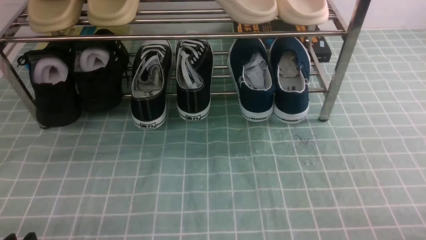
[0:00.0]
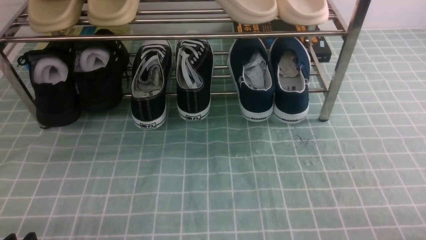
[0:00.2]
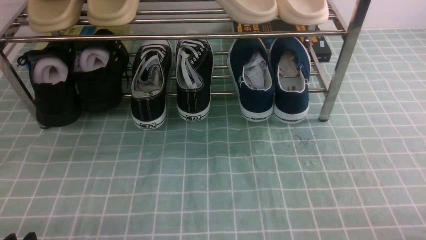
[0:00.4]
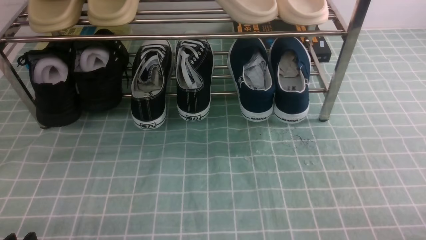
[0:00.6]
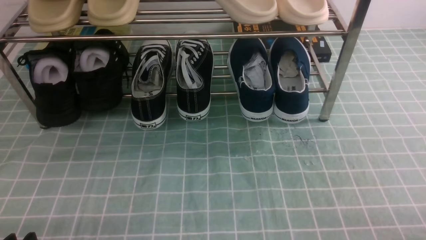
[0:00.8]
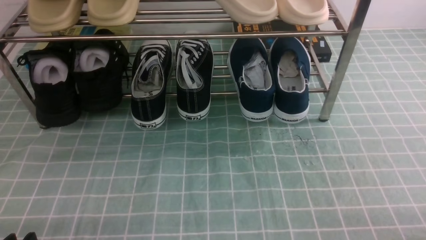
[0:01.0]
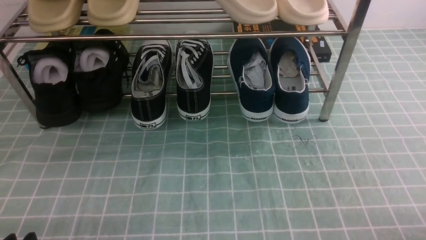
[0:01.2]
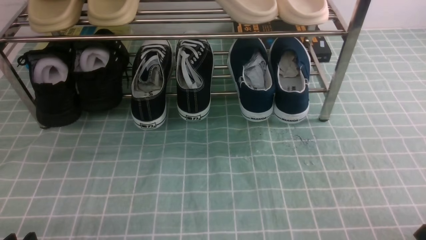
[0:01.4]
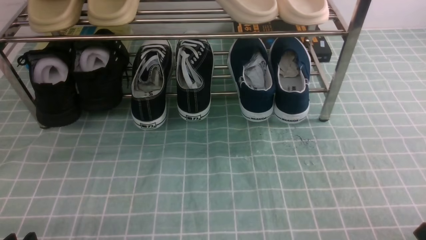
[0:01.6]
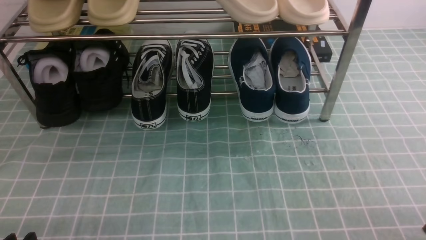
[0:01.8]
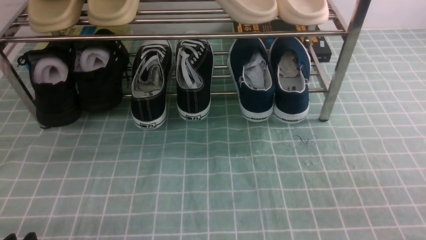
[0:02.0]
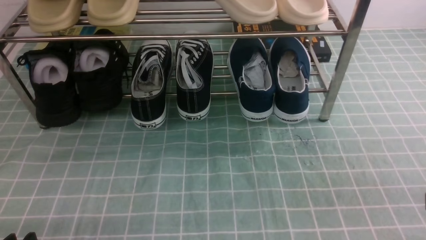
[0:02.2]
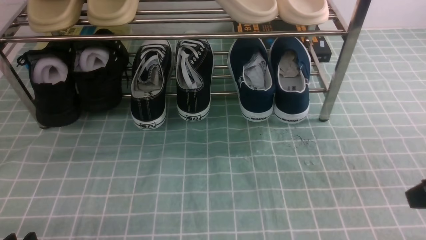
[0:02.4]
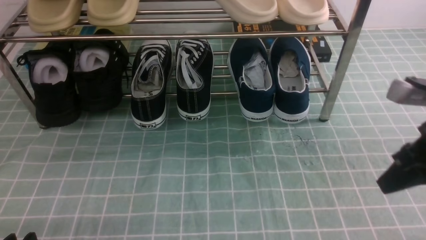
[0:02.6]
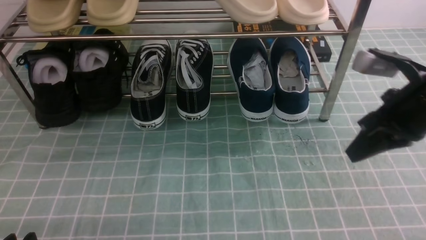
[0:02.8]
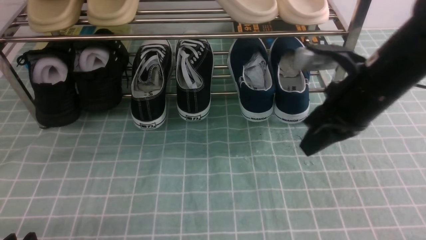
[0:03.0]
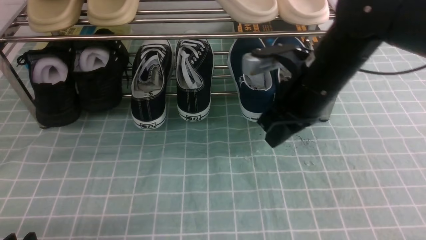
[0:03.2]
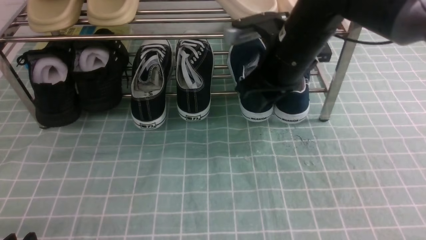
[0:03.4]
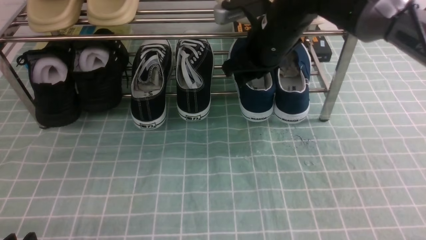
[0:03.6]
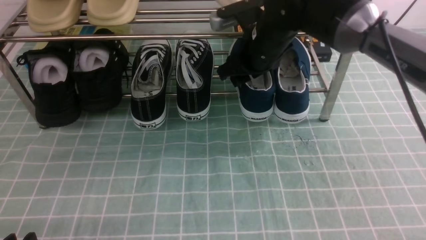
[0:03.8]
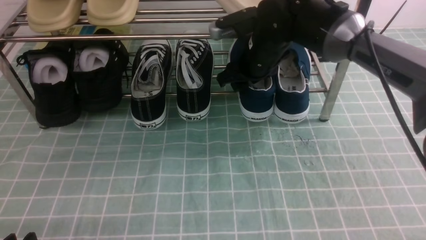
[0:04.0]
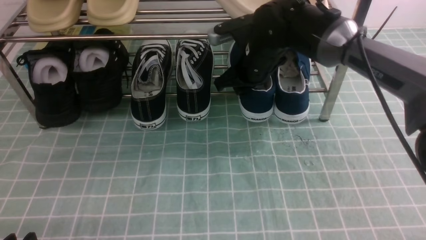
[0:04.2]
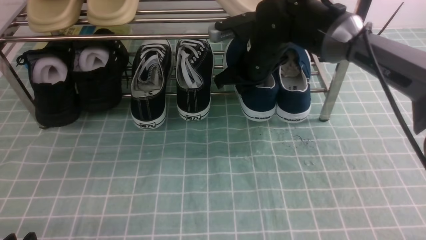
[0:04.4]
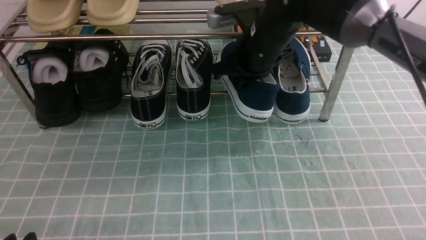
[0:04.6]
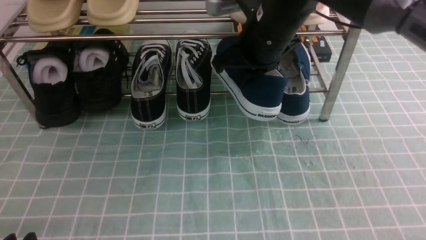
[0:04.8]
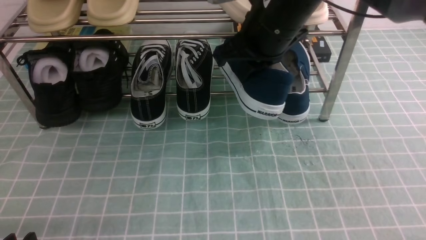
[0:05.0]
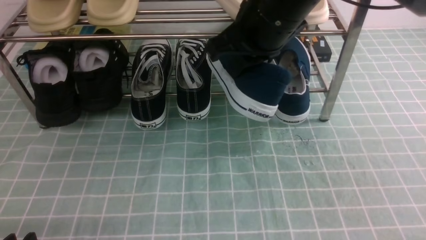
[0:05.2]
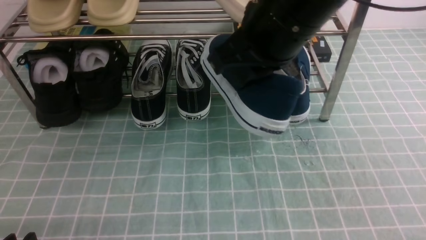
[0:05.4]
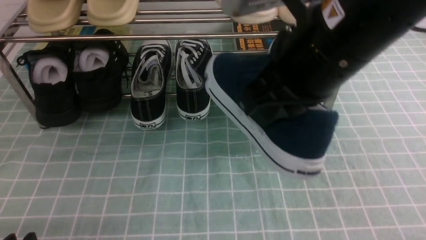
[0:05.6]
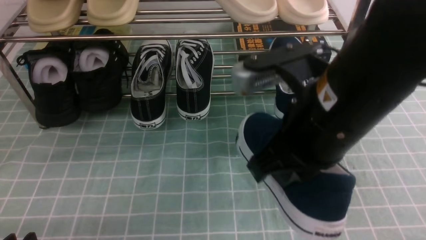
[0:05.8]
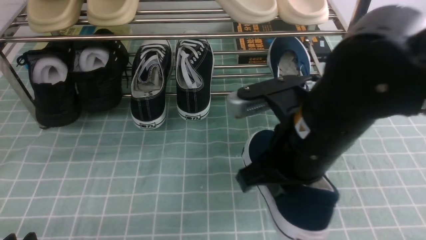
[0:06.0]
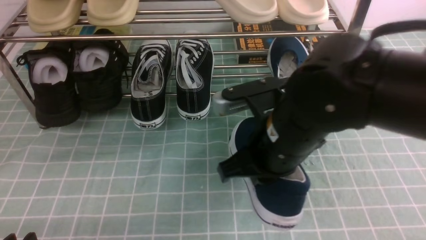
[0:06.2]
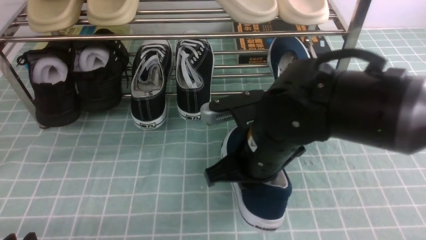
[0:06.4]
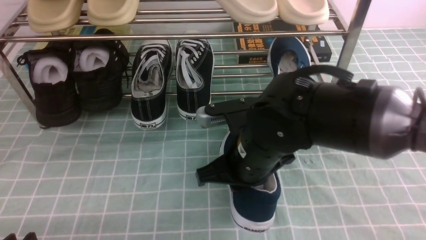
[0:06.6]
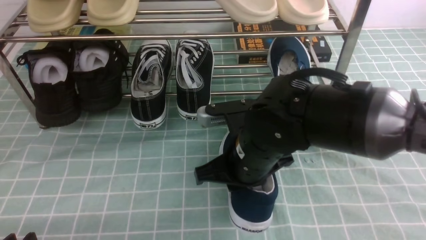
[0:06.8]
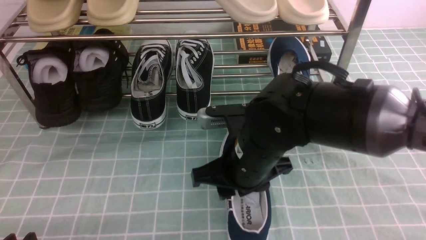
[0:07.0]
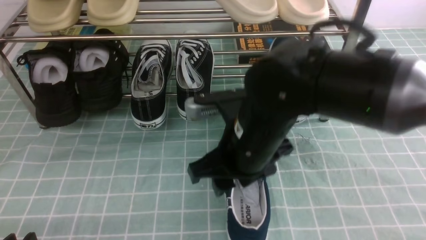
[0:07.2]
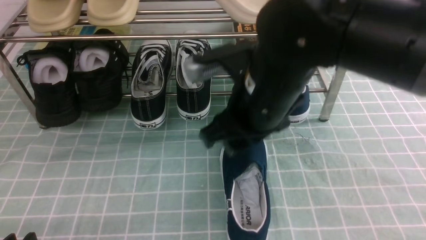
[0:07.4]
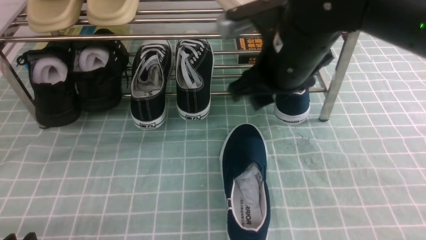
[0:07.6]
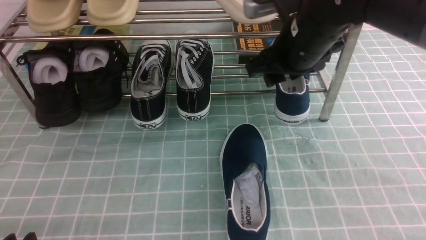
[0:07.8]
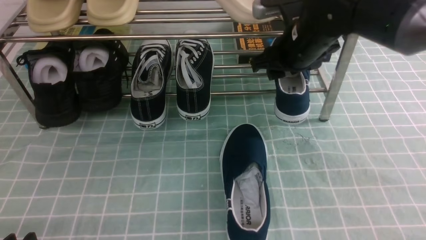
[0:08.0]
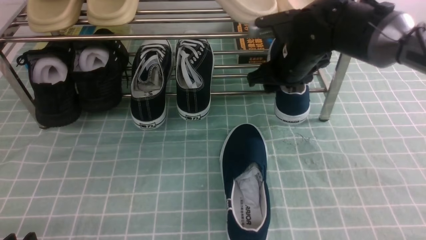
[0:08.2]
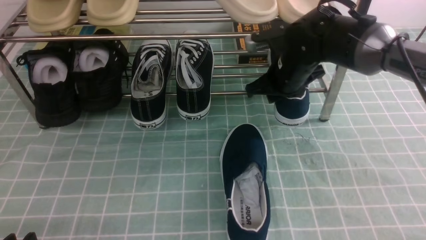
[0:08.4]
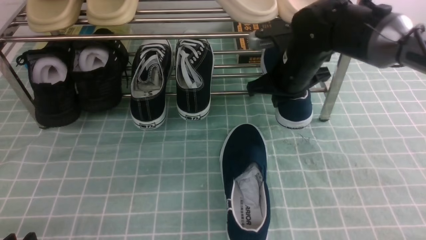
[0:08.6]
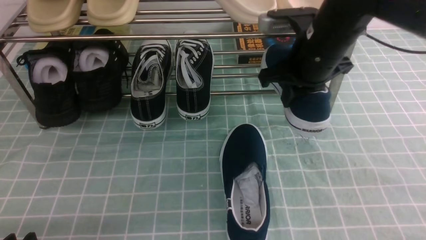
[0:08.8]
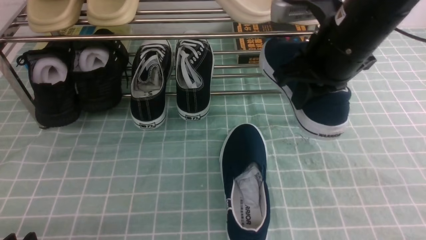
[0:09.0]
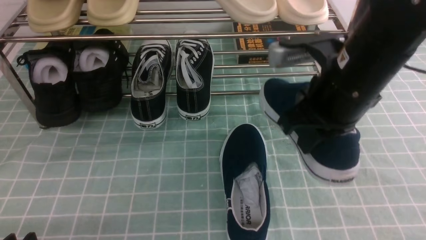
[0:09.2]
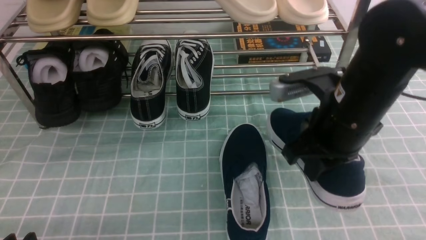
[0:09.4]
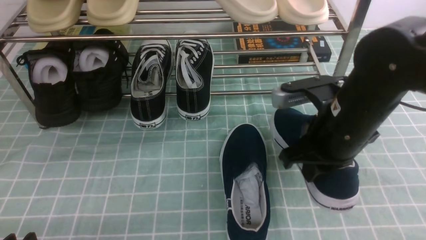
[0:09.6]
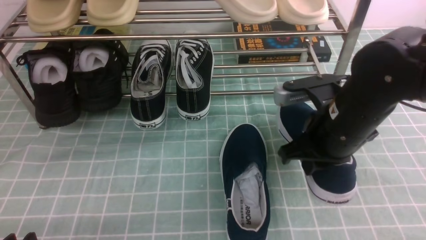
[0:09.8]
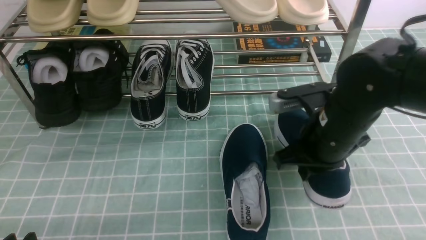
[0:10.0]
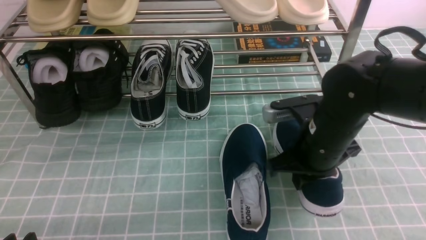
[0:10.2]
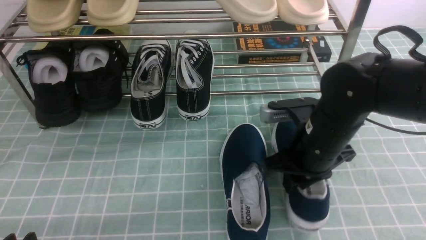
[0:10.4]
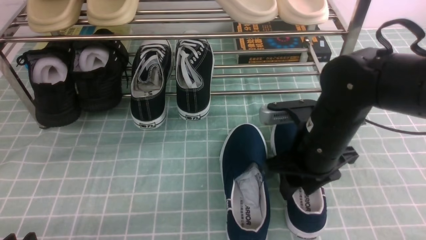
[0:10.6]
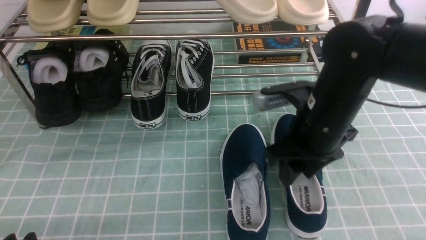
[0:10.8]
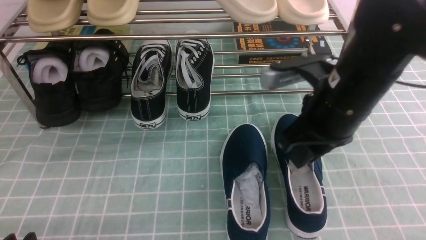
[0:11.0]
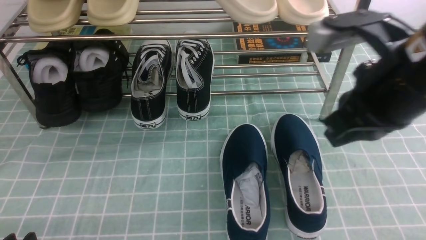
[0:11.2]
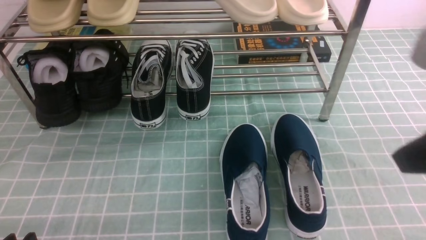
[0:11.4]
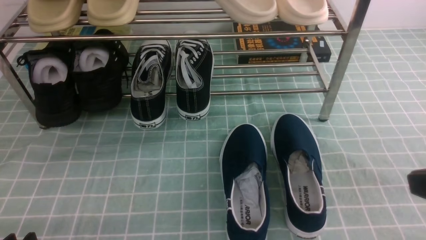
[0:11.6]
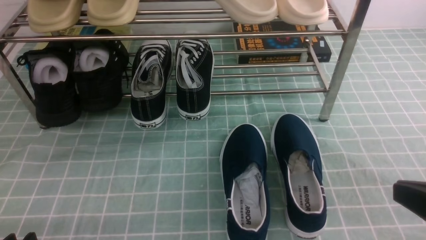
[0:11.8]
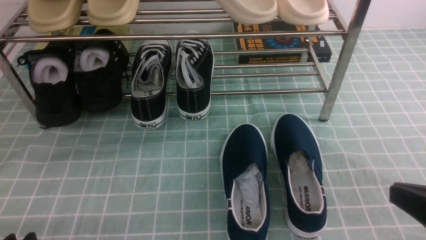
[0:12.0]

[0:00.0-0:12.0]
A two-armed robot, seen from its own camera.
Step, 0:00.0 to 0:04.2: use the right arm to clamp a shoe on the right side of the shoe rack.
Step, 0:04.4 to 0:07.2: use the right arm to take out the clamped shoe from the shoe rack and put it down.
Step, 0:07.4 to 0:08.4: use the right arm to clamp a shoe on the right side of the shoe rack.
Step, 0:08.6 to 0:10.6: use the right arm to take out the clamped shoe from the shoe rack and put it down.
0:01.6 to 0:03.0: The right gripper goes about 30 cm forward, to the left and upward.
0:03.0 to 0:04.4: The right gripper shifts roughly 15 cm forward and to the left, and opens, then closes again.
0:04.4 to 0:06.0: The right gripper travels backward by about 20 cm.
0:06.0 to 0:07.6: The right gripper is displaced forward by approximately 10 cm, travels downward and back again, roughly 10 cm each way, and opens up.
0:07.6 to 0:09.0: The right gripper is displaced to the right by roughly 5 cm, reaches some 10 cm forward, then returns, and closes up.
0:09.0 to 0:10.4: The right gripper heads downward, covering approximately 10 cm, and opens.
0:10.4 to 0:12.0: The right gripper shifts approximately 25 cm backward and to the right, and closes its fingers.

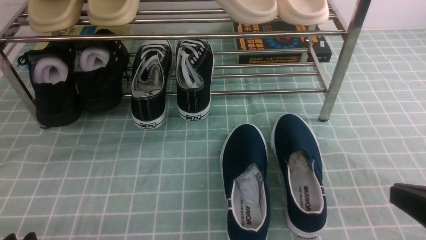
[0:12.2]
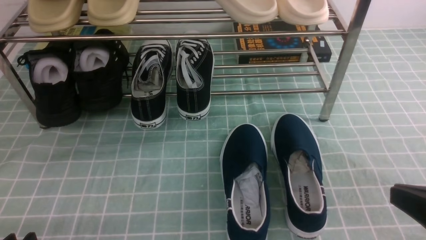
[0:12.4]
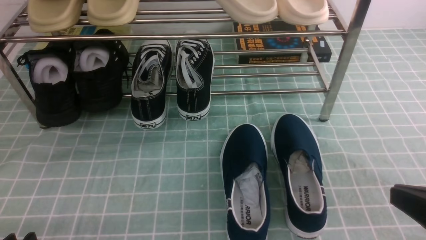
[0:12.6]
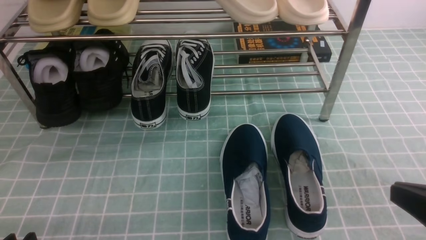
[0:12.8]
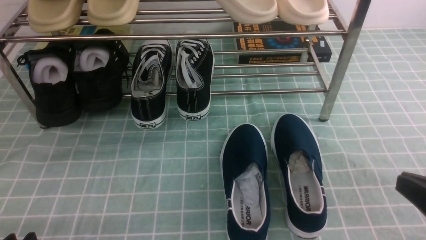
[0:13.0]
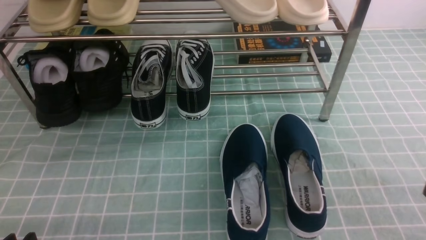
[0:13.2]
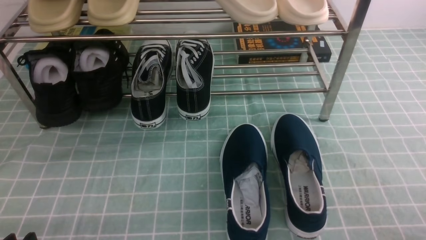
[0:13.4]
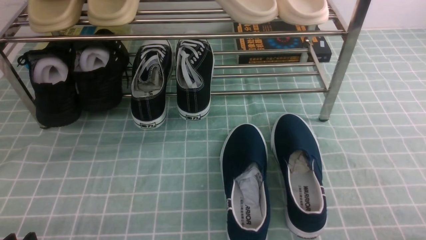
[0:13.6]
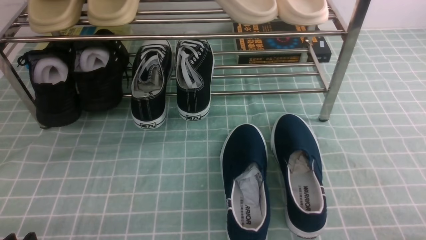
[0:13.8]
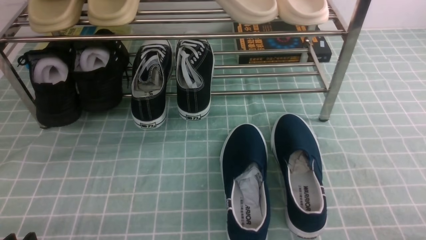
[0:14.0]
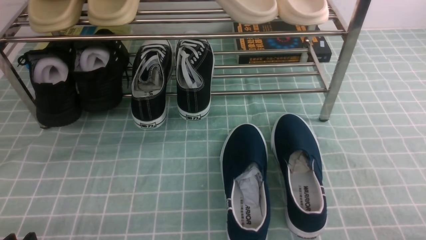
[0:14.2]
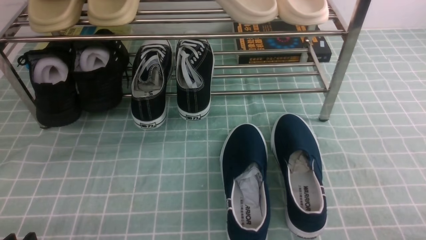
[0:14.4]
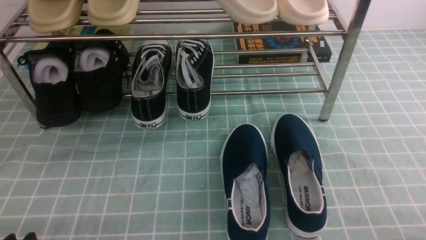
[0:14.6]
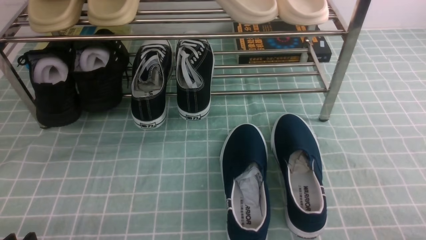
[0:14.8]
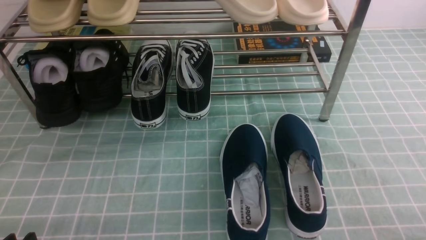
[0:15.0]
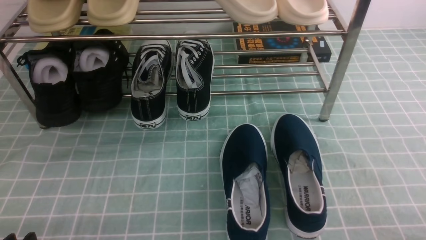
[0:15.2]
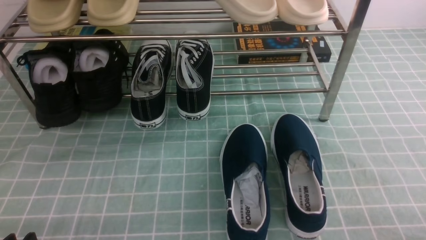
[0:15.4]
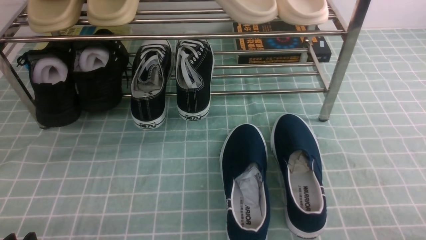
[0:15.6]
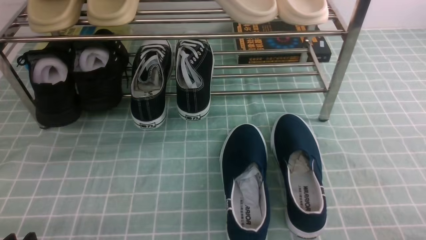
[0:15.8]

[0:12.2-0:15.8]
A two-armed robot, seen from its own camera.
0:12.2 to 0:14.0: The right gripper goes about 10 cm downward and to the right.
0:14.0 to 0:15.8: The two grippers keep their place.

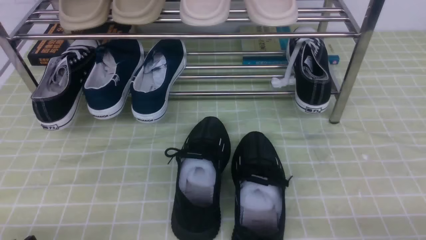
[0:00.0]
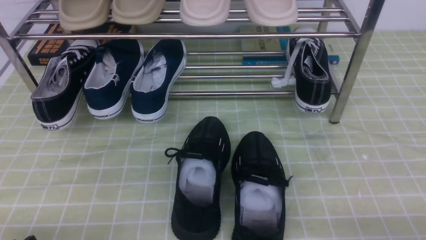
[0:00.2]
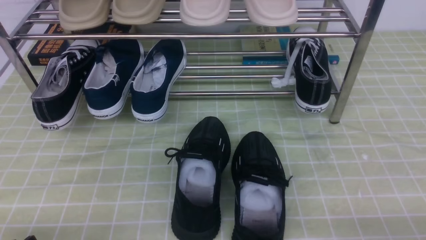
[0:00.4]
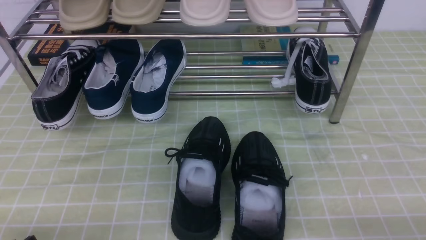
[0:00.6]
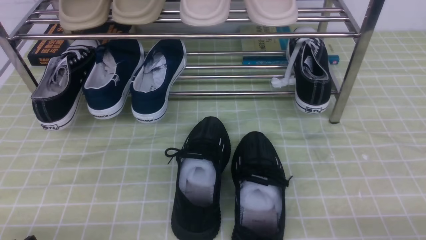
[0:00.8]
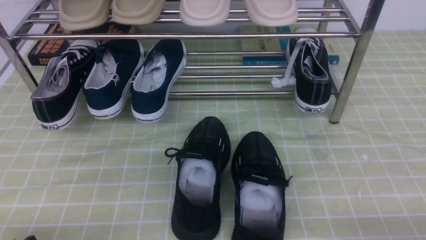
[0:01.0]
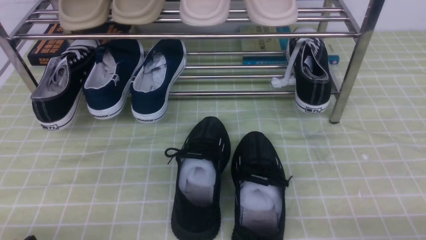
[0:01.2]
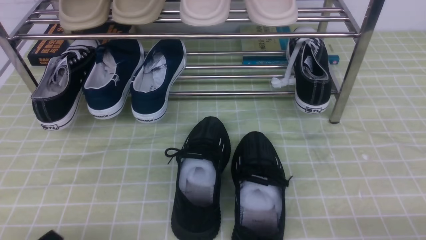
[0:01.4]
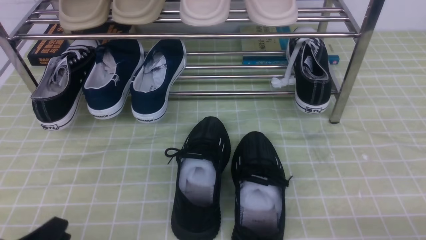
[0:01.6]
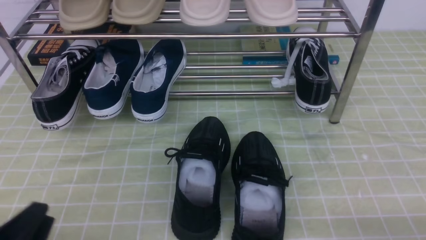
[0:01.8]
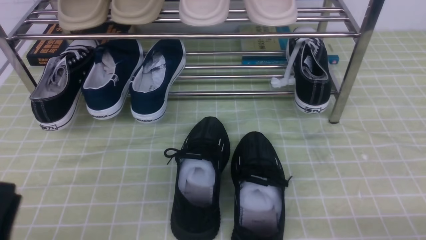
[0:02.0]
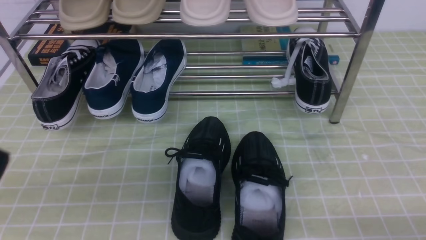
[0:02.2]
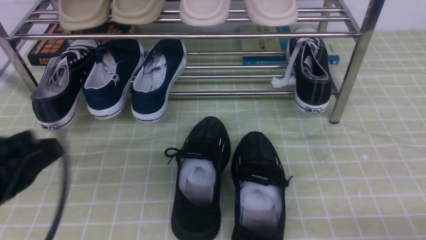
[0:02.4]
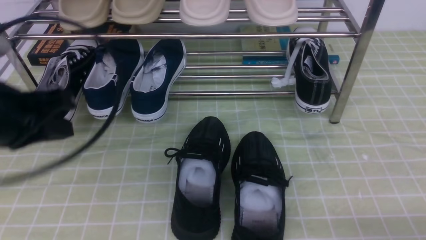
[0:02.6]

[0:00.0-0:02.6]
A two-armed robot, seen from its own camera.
0:01.2 to 0:02.6: The left gripper is displaced upward and forward by roughly 25 cm, and closes its fingers.
